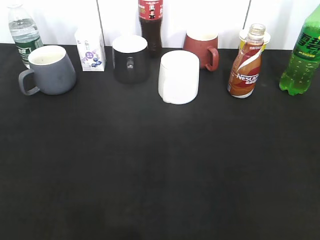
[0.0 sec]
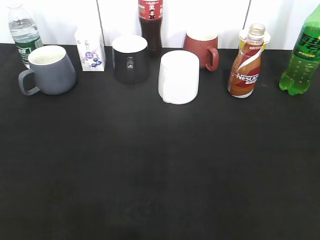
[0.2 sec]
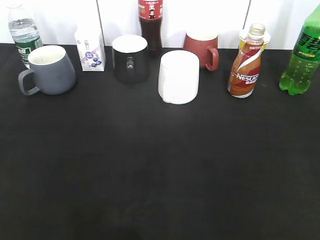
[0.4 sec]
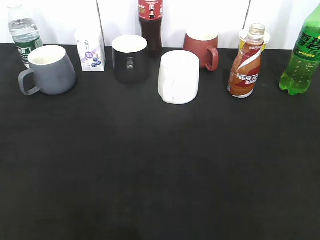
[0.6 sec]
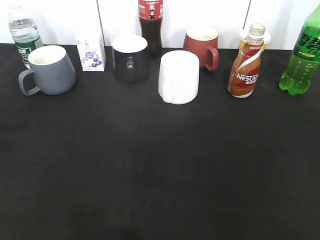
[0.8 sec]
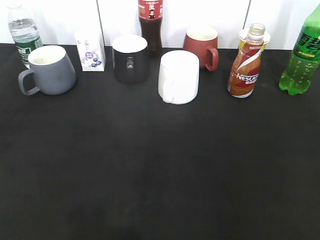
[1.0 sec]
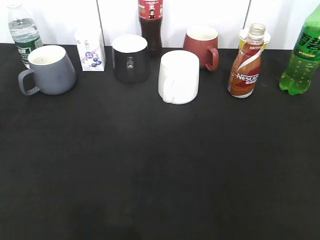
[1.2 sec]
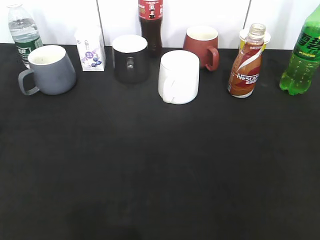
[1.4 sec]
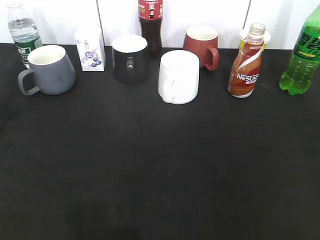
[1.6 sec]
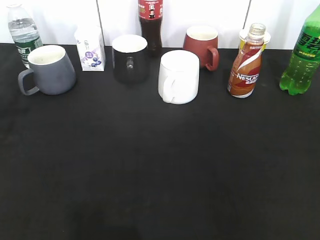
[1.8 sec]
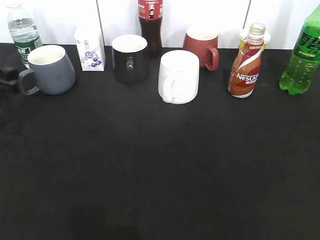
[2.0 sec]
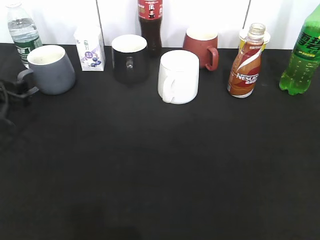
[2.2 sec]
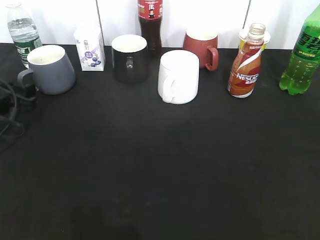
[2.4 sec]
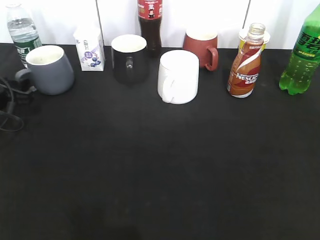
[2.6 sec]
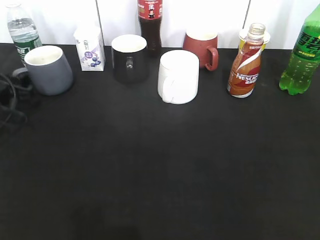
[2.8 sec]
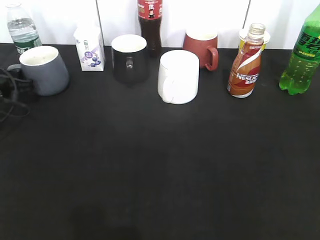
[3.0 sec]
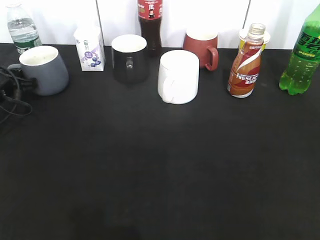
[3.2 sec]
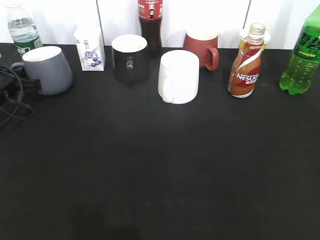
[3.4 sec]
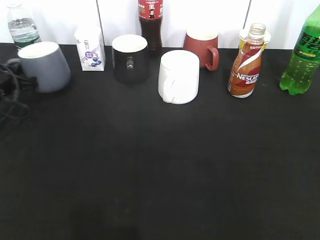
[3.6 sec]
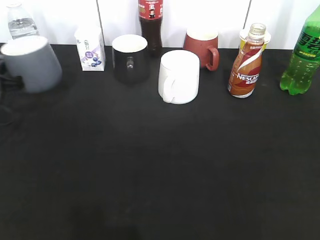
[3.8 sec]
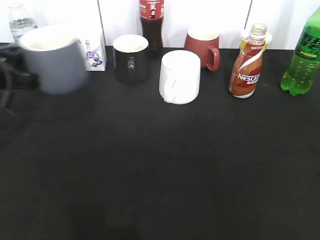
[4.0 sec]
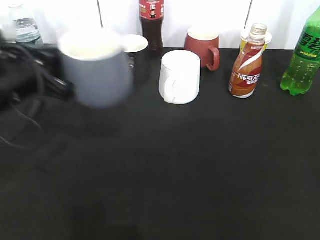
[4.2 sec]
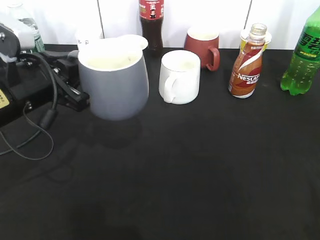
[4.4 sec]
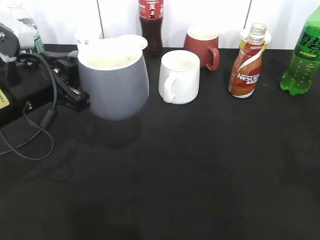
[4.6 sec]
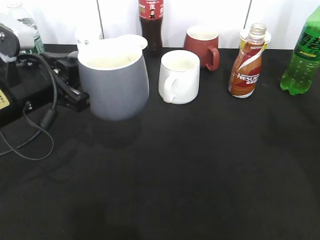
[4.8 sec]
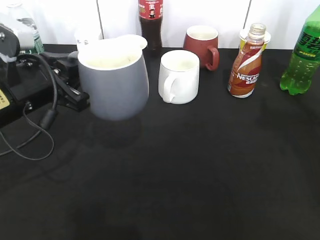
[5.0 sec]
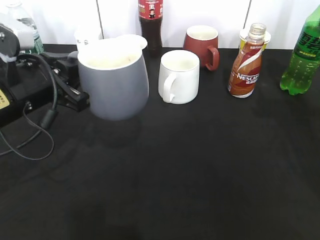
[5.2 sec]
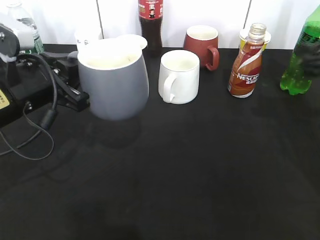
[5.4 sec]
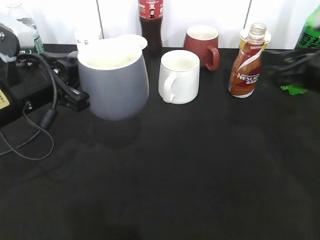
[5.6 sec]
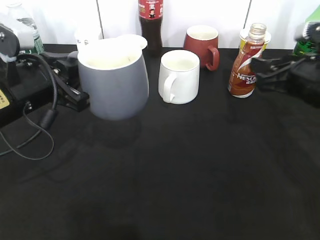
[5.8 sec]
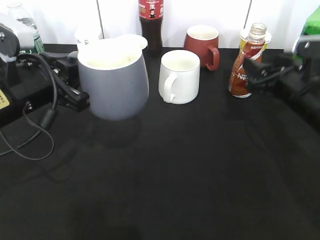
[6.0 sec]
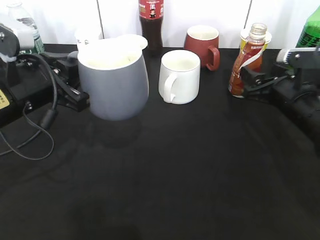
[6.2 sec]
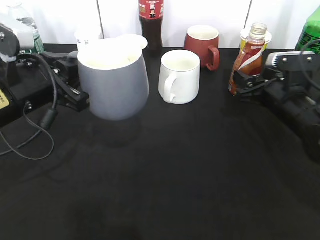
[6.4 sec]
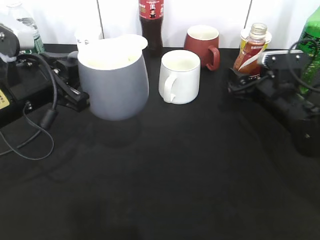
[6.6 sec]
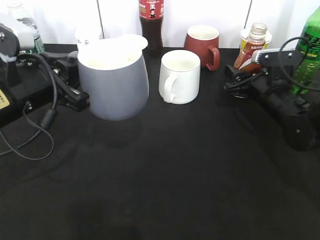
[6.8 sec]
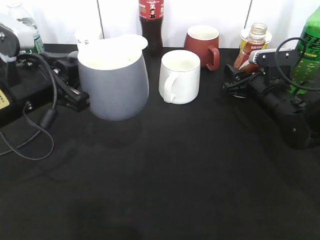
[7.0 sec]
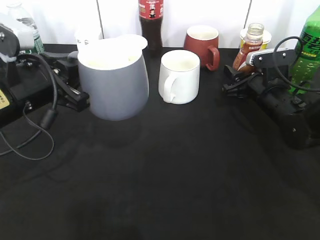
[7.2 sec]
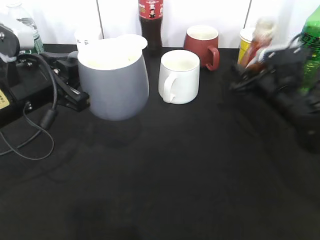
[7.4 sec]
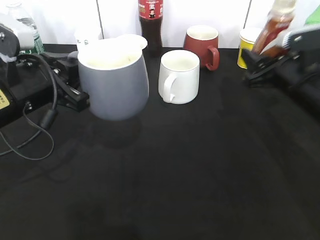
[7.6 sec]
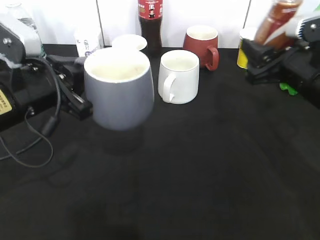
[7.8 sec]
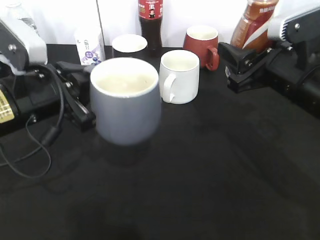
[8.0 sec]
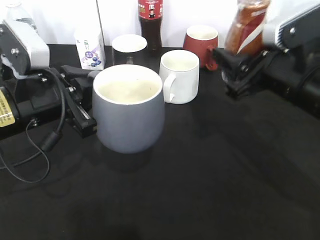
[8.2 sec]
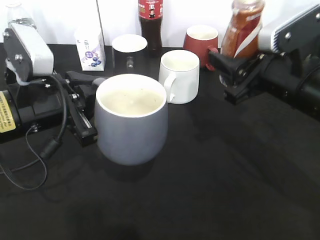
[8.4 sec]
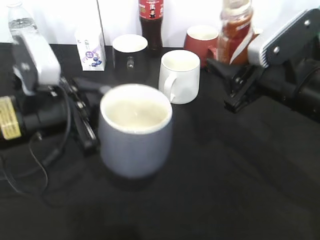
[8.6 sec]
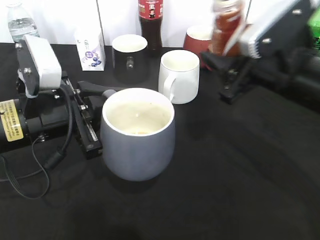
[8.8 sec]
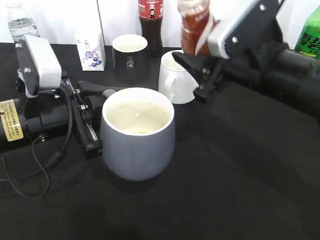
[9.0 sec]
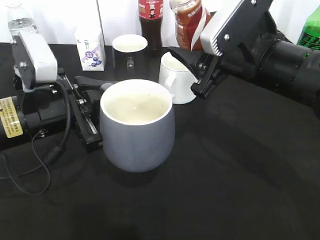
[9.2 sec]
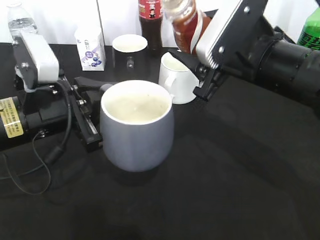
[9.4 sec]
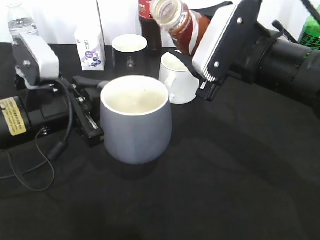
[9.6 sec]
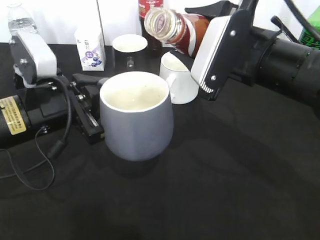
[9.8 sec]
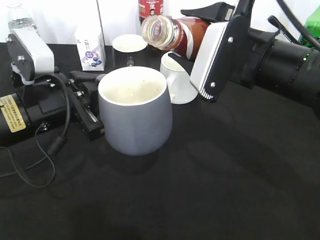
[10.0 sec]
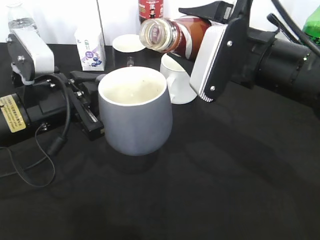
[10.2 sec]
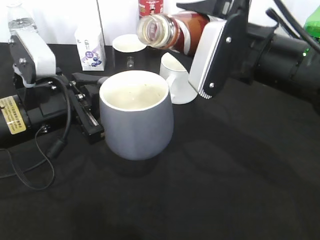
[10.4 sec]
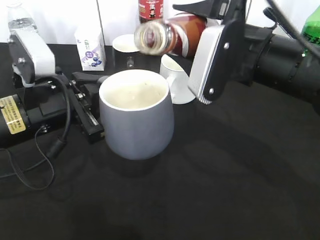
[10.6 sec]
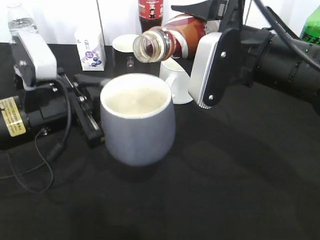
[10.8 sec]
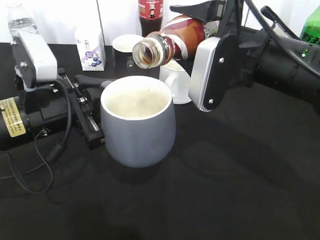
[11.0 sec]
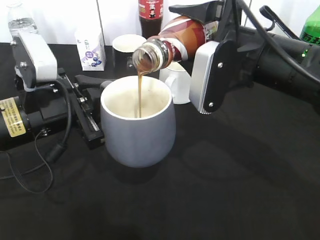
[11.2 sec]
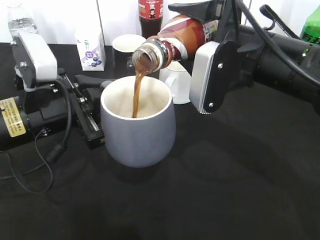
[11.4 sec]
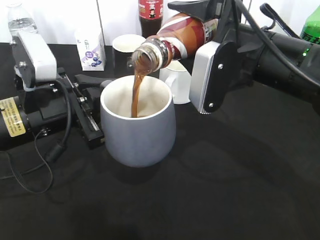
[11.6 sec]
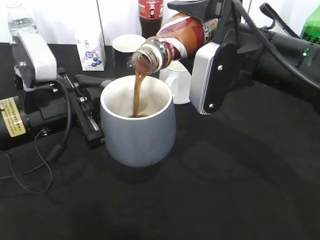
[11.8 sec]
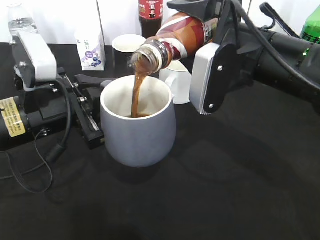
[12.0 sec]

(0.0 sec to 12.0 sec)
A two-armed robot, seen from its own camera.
Step, 0.0 sec - 3.2 sec: Grasp the grey cup with left gripper.
Step, 3.6 sec - 5.0 sec: Lift the grey cup with left gripper.
Step, 5.2 sec - 7.2 sec: Grasp the bottle with coffee with right gripper.
1.6 sec - 3.0 sec: The left gripper heads downward and forward, covering some 20 cm, and closes.
3.0 sec - 4.4 sec: The left gripper is displaced to the right, backward and upward by some 20 cm, and closes up.
4.4 sec - 6.0 sec: The right gripper heads forward and downward, covering roughly 35 cm.
6.0 sec - 7.6 sec: The right gripper moves roughly 5 cm downward and comes back, and closes.
7.6 sec - 9.0 sec: The right gripper moves to the left and upward, roughly 10 cm.
10.4 sec - 12.0 sec: The grippers move only a little.

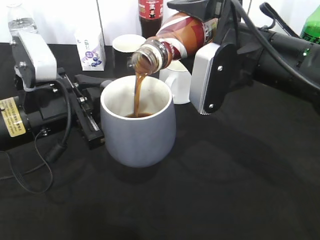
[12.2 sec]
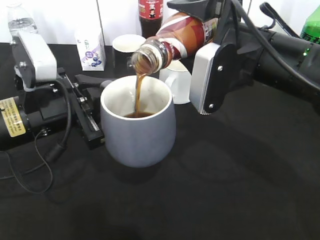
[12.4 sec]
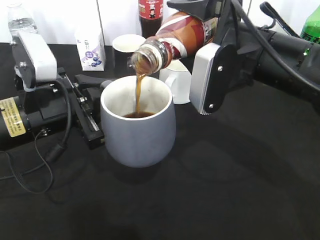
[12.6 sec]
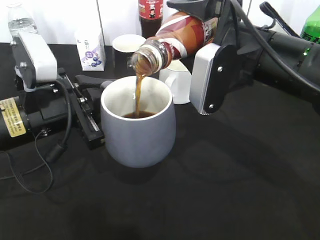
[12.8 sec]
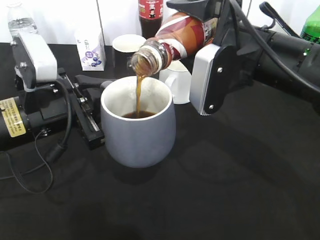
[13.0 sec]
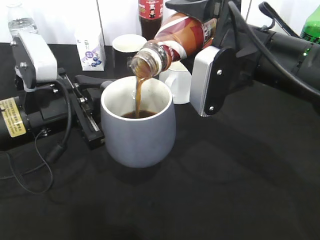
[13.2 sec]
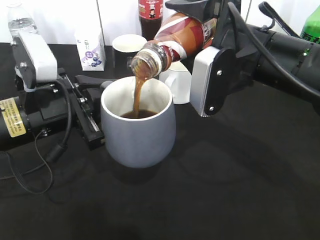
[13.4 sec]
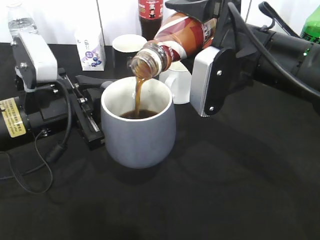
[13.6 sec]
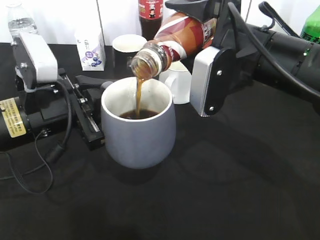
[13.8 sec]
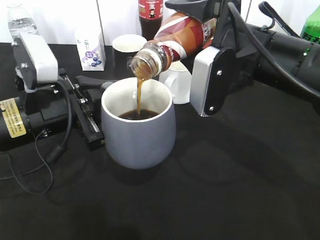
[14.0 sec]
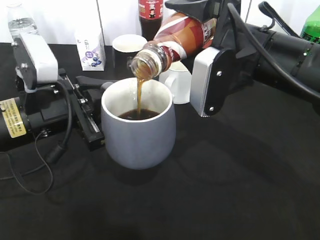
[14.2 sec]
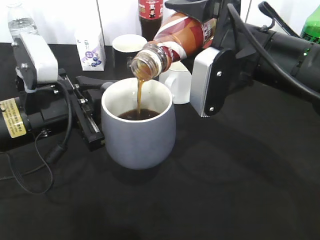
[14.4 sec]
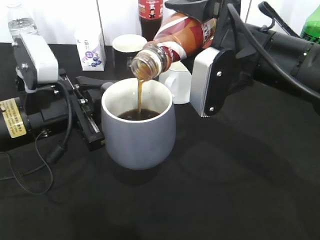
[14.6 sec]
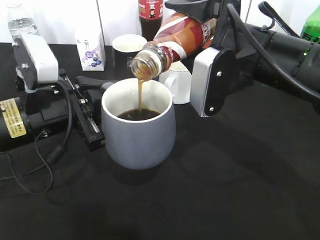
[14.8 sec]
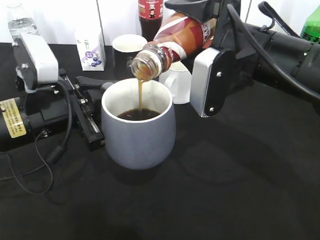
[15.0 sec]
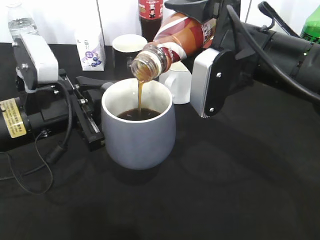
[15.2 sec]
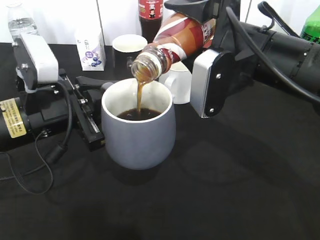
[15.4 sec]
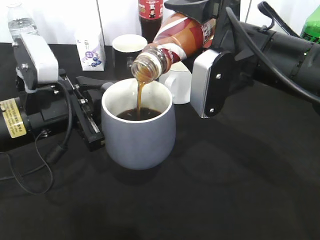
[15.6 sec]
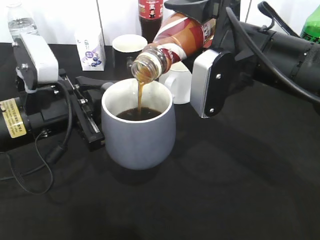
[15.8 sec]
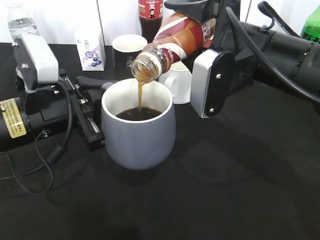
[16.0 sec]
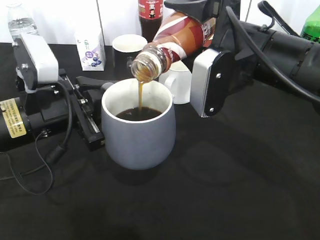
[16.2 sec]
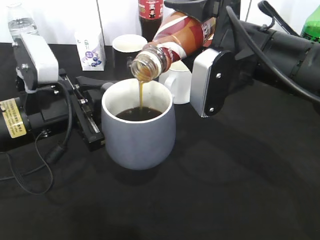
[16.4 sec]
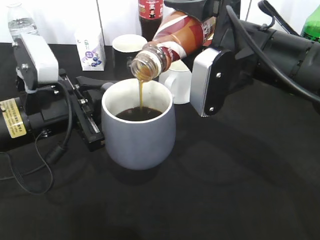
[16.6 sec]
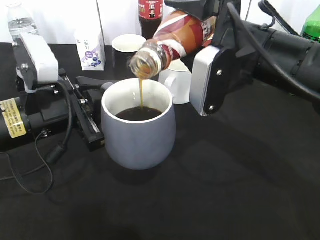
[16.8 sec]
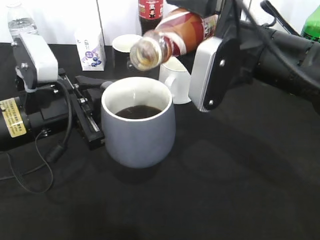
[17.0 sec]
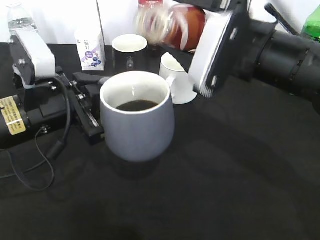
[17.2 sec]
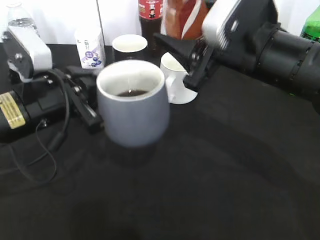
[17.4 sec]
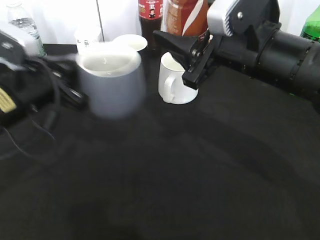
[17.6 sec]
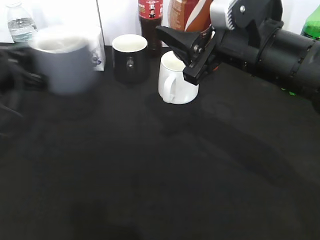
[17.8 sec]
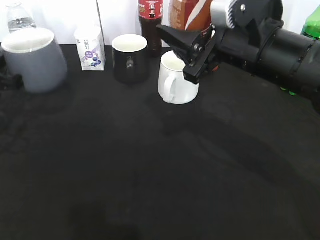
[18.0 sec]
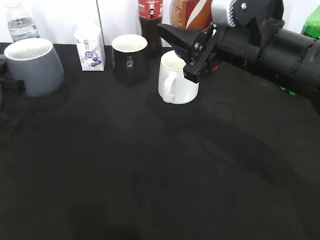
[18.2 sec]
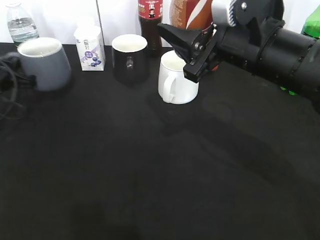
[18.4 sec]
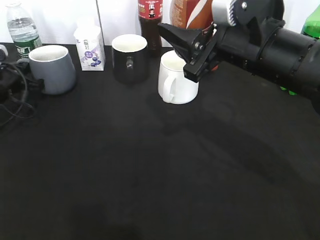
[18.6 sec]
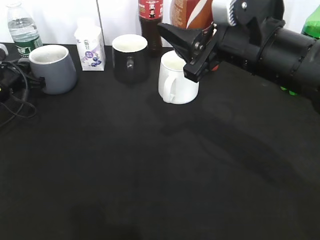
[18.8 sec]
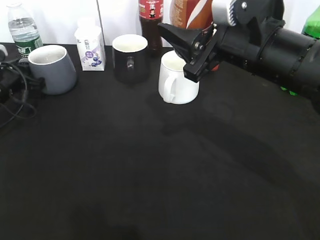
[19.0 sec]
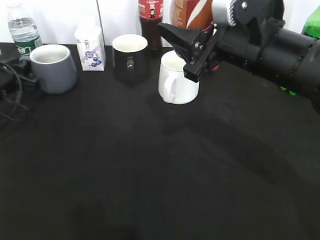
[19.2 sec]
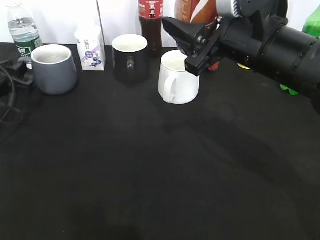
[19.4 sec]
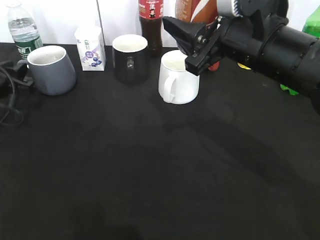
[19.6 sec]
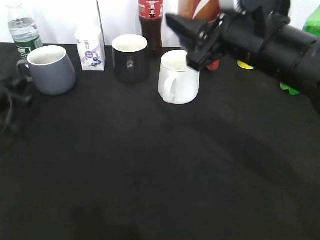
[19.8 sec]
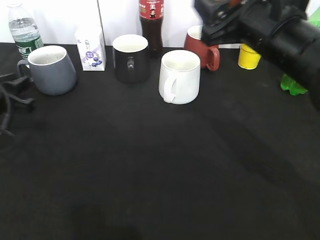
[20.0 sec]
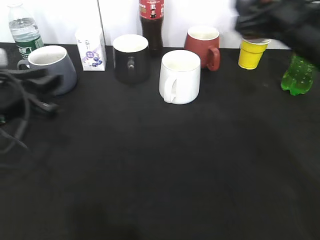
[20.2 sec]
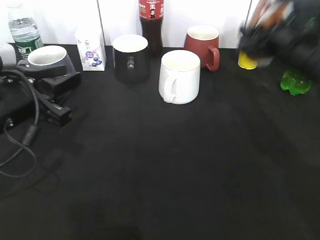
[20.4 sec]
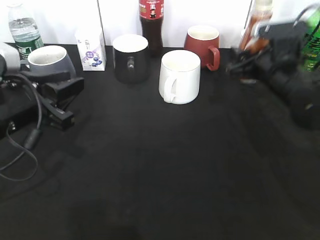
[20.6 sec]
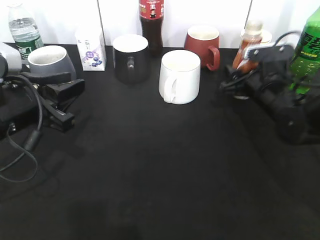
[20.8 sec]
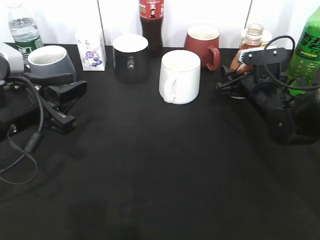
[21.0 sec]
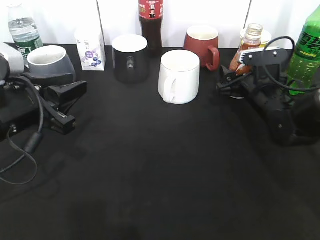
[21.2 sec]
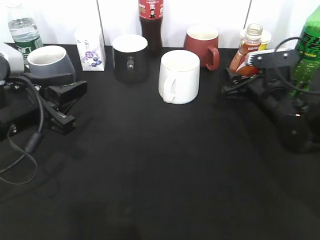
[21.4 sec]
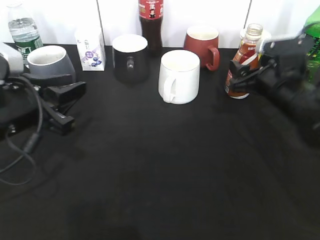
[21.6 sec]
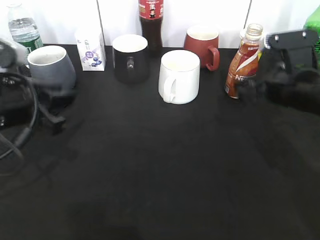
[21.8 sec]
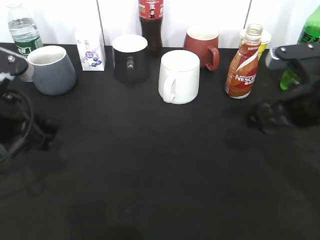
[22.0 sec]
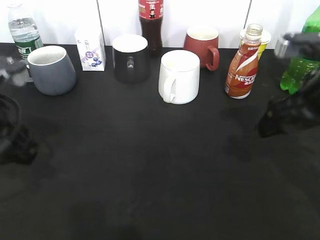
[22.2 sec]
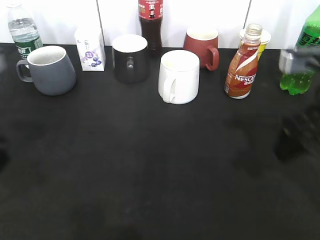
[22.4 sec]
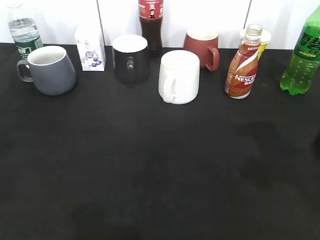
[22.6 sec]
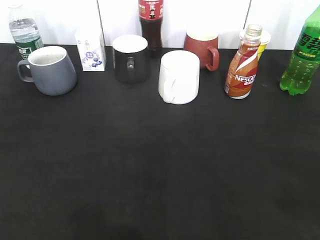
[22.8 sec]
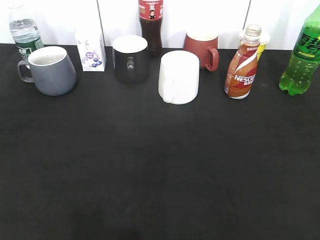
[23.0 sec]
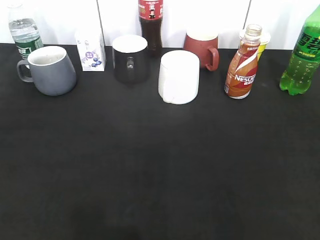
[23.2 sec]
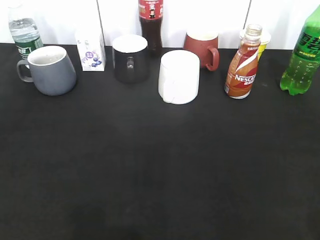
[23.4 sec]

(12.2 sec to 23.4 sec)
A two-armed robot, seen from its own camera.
Step, 12.2 sec - 17.2 sec: Pour the coffee from bottle to cup with right gripper.
Step, 17.4 sec - 20.0 sec: Place the grey cup on the table with left gripper.
Step, 20.2 sec - 21.8 sec: Place the coffee bottle on the table with right gripper.
12.2 sec - 13.8 sec: Neither gripper changes place.
13.8 sec - 15.4 sec: Neither gripper changes place.
15.4 sec - 17.0 sec: The grippers make only small movements.
17.0 sec - 18.6 sec: The left gripper goes about 25 cm forward, to the left and downward.
18.6 sec - 20.2 sec: The right gripper moves to the right and forward, about 10 cm, while the left gripper moves backward, to the right and upward, some 20 cm, and opens.
20.2 sec - 21.8 sec: The right gripper heads downward, covering approximately 10 cm, and opens.
21.8 sec - 23.4 sec: The left gripper shifts approximately 20 cm backward and to the left, and opens its fingers. The right gripper is displaced backward by some 30 cm.
